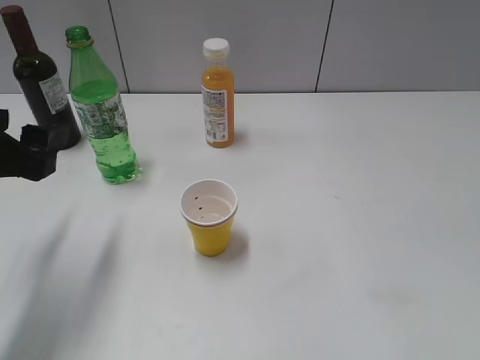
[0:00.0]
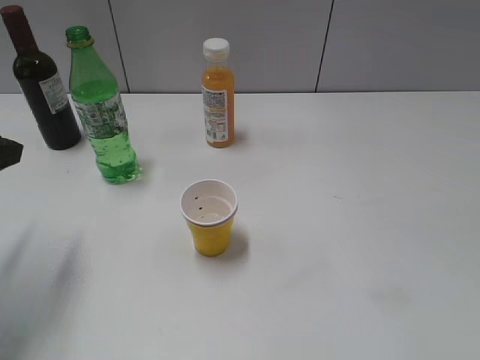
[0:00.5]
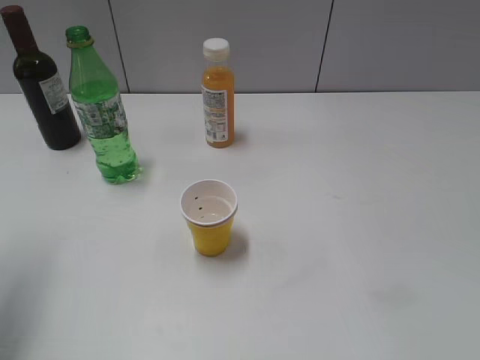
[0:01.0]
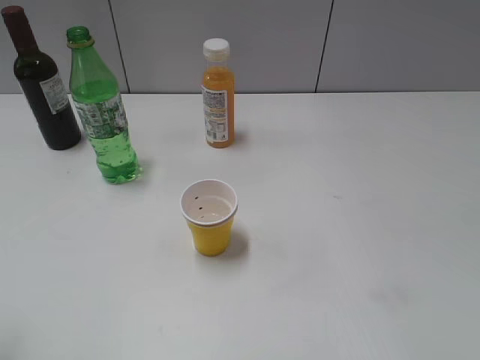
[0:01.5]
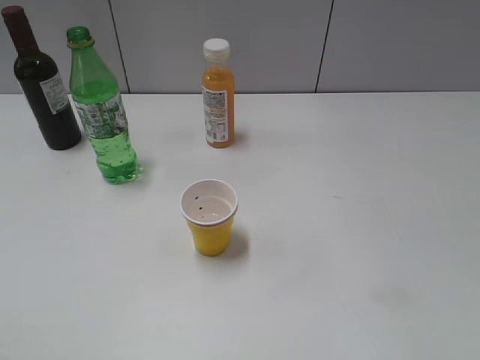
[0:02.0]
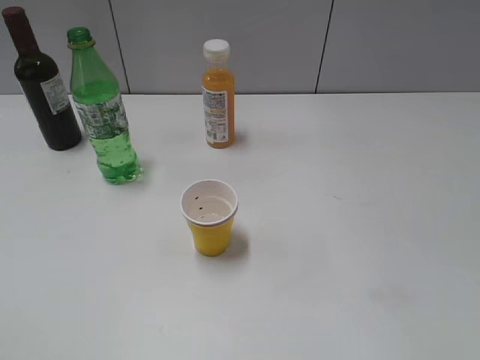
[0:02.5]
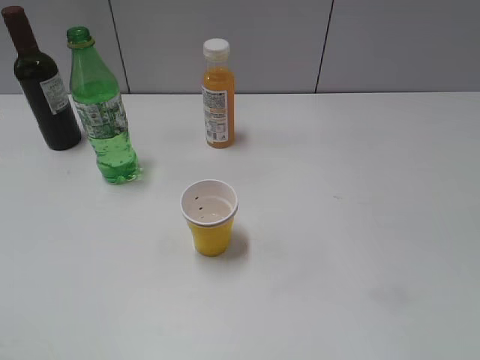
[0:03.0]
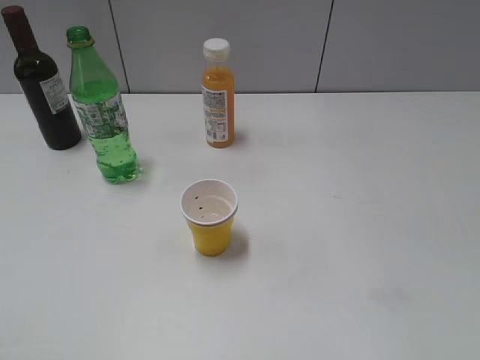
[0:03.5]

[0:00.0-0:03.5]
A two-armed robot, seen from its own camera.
0:00.0 to 0:02.0: The left gripper moves backward and upward, some 20 cm.

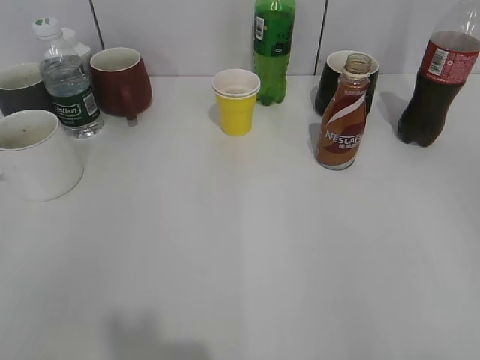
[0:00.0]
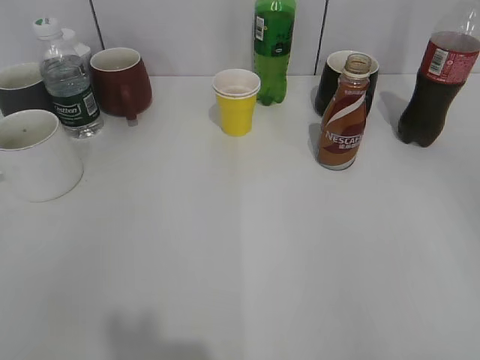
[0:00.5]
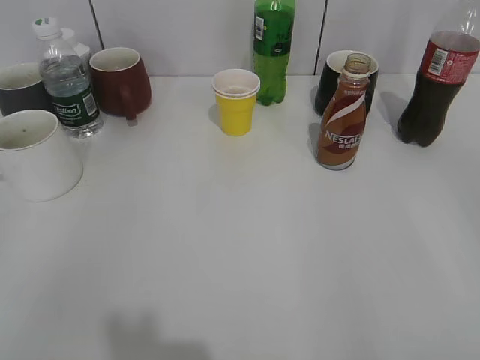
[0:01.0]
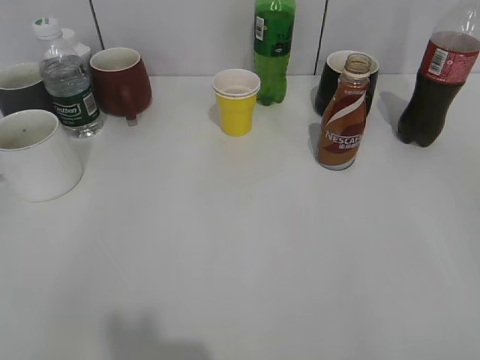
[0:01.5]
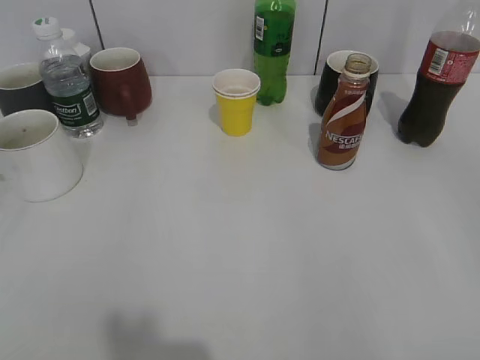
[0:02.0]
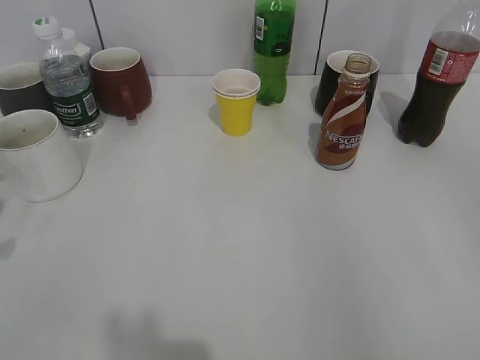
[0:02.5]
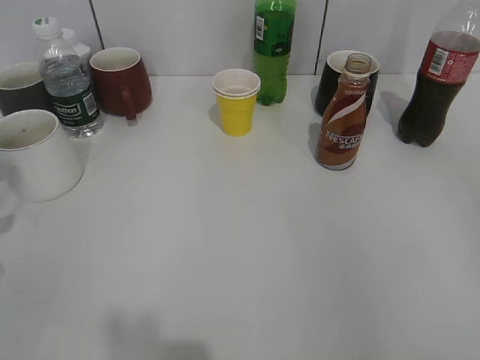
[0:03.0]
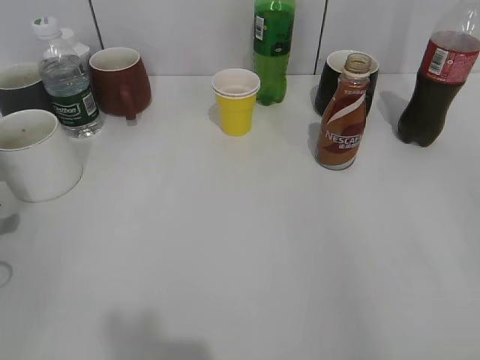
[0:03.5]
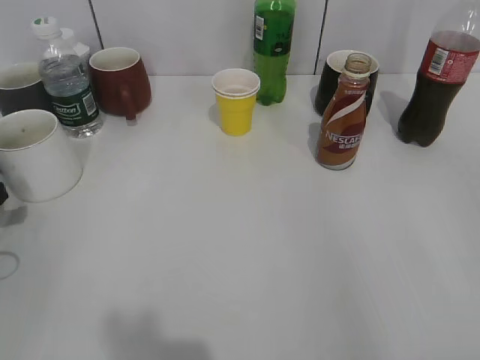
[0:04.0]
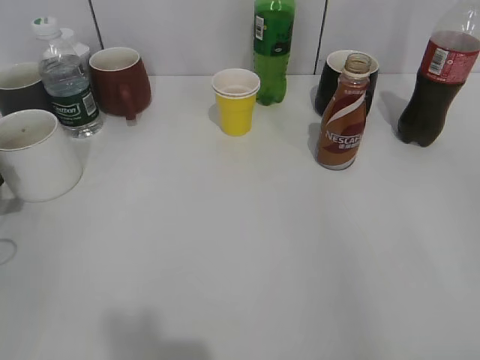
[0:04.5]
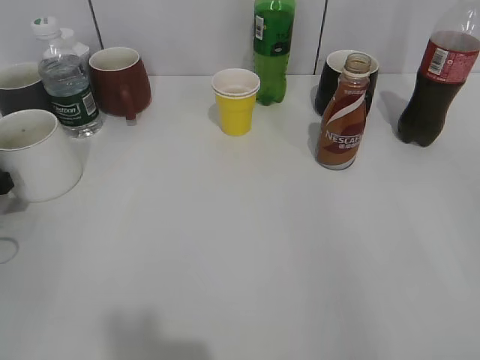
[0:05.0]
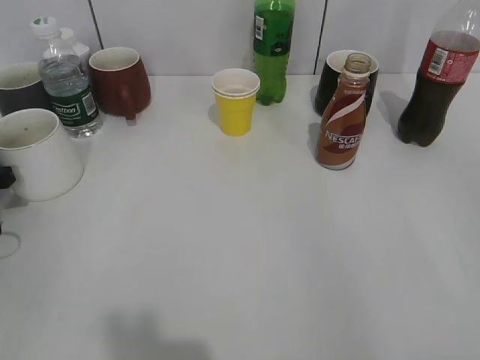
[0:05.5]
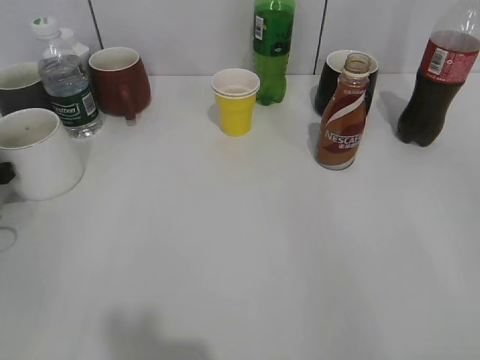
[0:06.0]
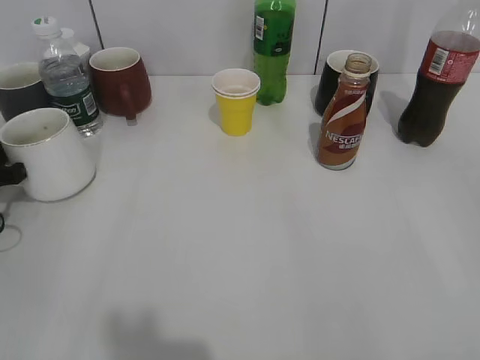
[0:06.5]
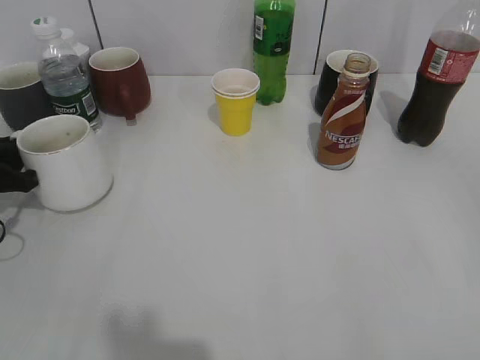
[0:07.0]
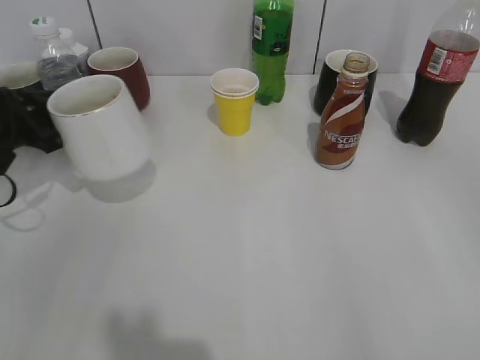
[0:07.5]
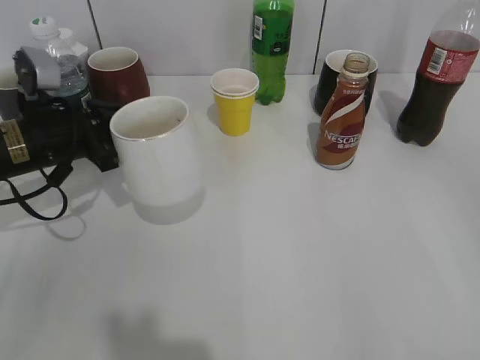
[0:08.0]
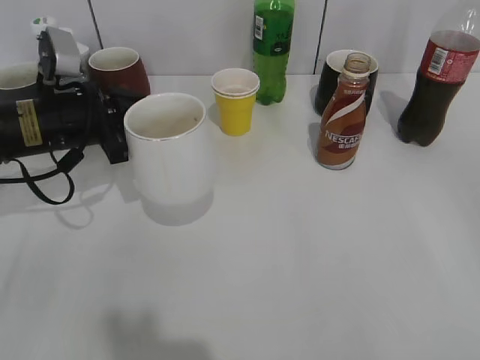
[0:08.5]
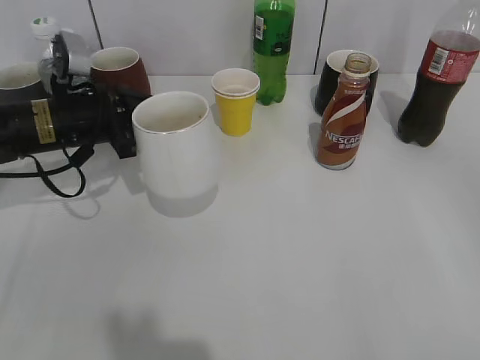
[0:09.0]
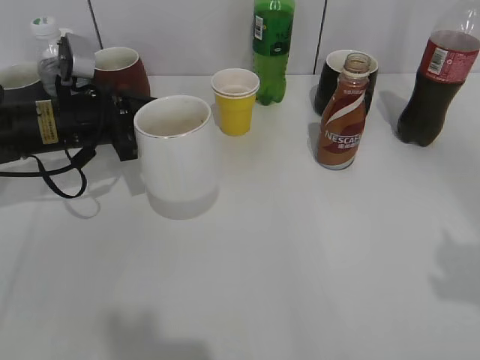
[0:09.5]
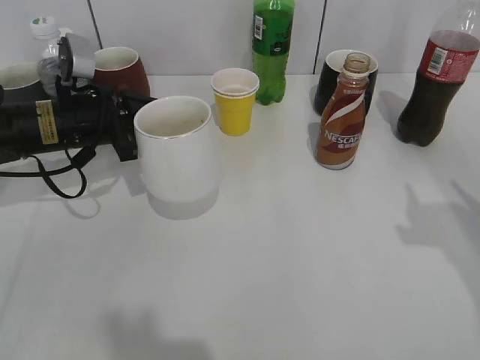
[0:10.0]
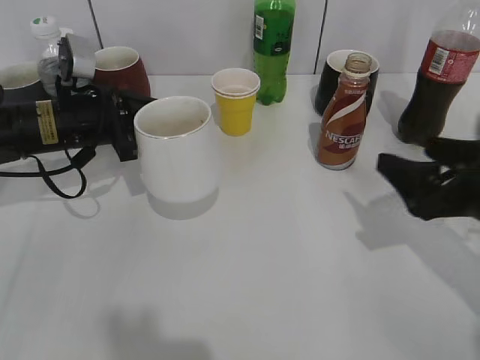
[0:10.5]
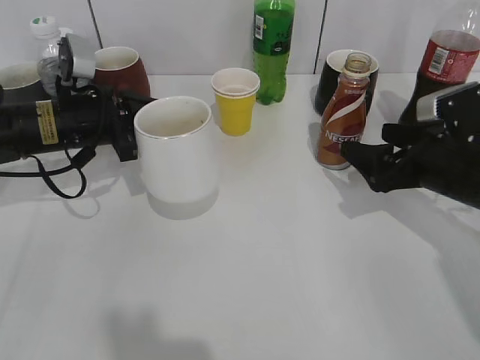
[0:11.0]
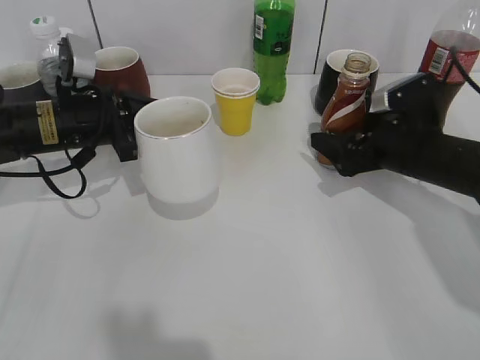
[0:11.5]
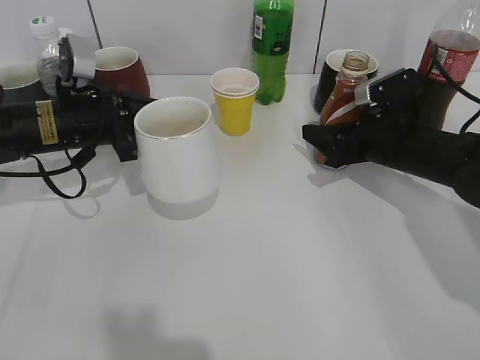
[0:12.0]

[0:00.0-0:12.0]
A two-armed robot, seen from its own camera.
Step, 0:06.5 to 0:08.5: Lift the white cup with left gripper.
0:02.0 to 0:04.0: The left gripper is displaced downward and forward by about 20 cm.
0:06.0 to 0:08.0: The left gripper shifts roughly 10 cm to the right, and closes.
0:08.0 to 0:10.0: The right gripper moves forward, approximately 15 cm.
0:10.0 to 0:12.0: The right gripper travels forward, downward and to the left by some 25 cm, and opens and closes again.

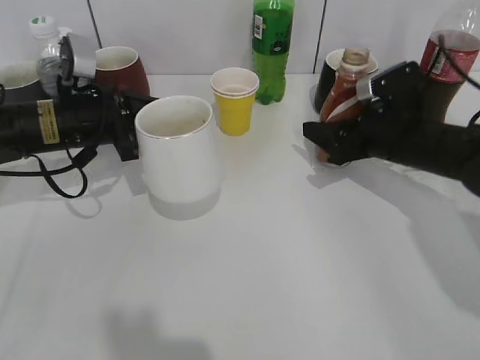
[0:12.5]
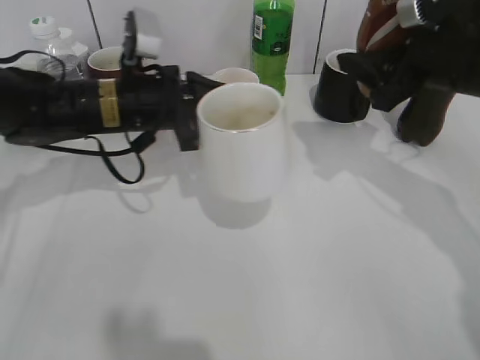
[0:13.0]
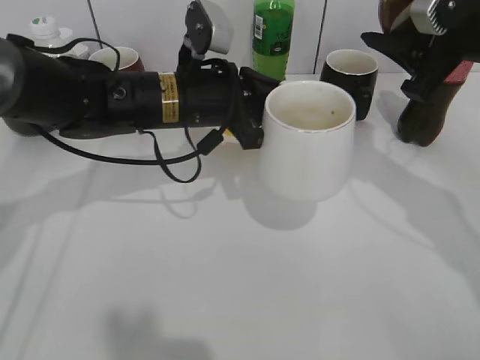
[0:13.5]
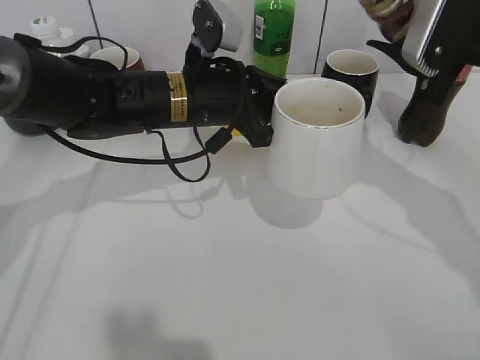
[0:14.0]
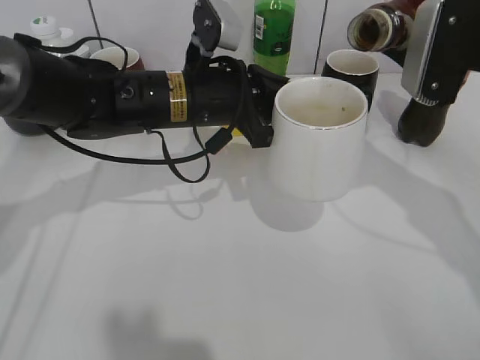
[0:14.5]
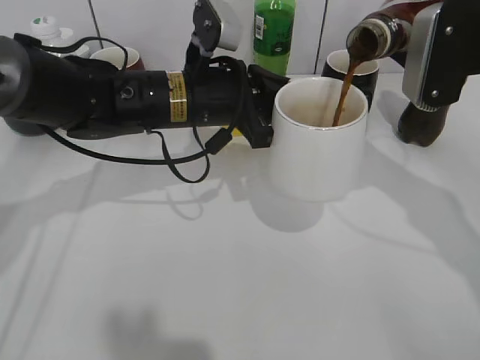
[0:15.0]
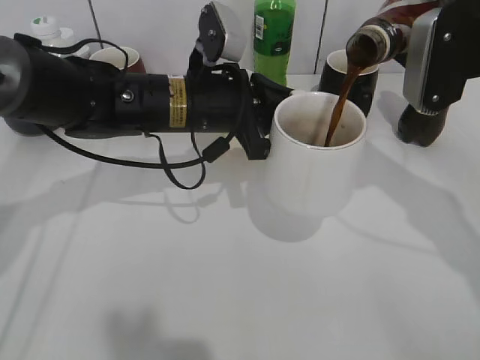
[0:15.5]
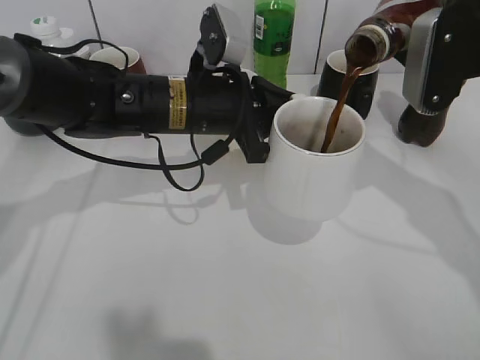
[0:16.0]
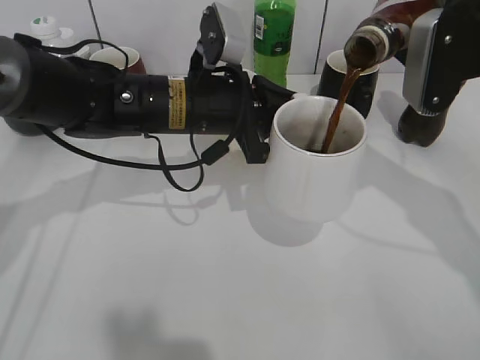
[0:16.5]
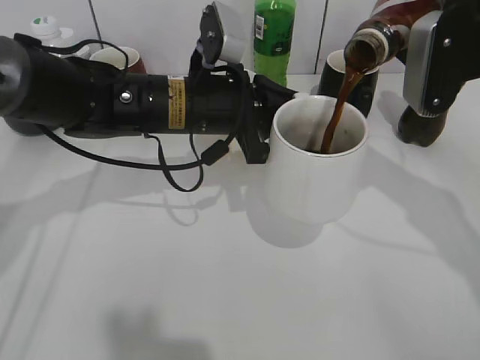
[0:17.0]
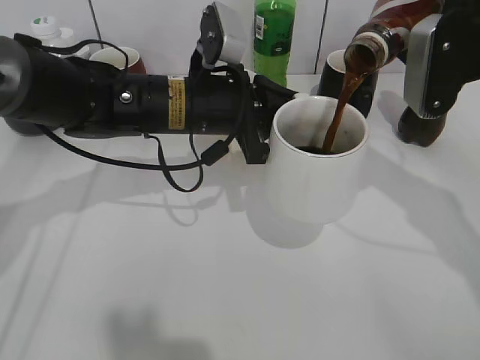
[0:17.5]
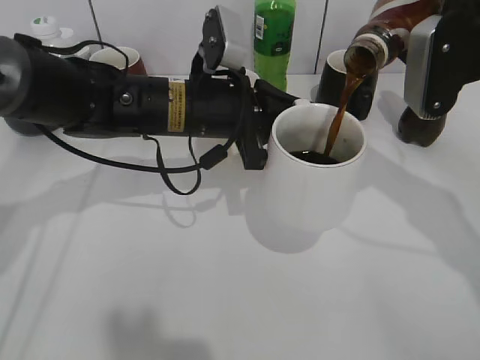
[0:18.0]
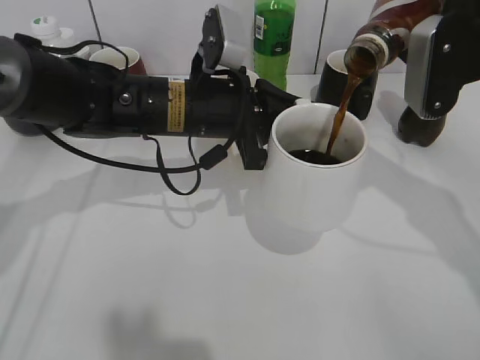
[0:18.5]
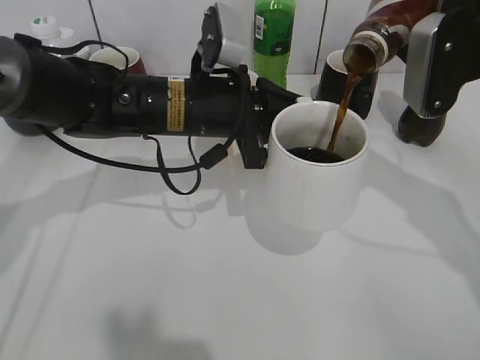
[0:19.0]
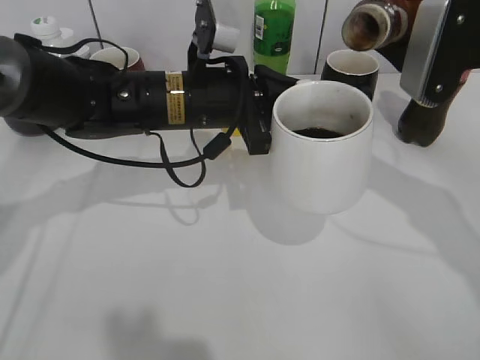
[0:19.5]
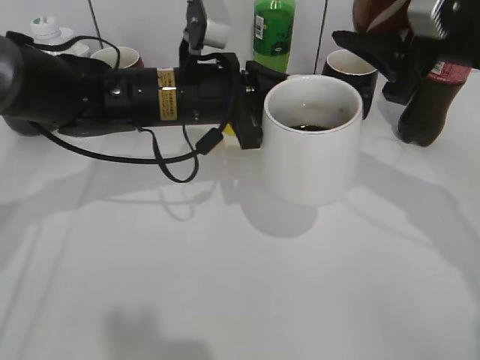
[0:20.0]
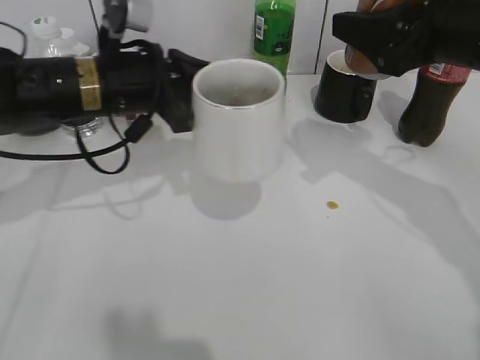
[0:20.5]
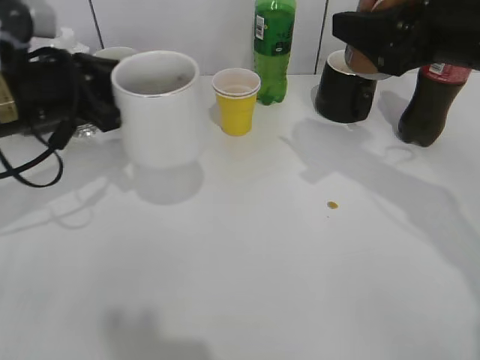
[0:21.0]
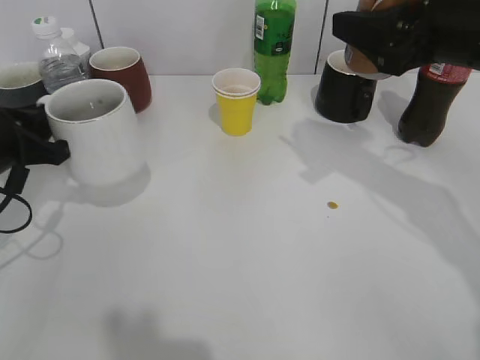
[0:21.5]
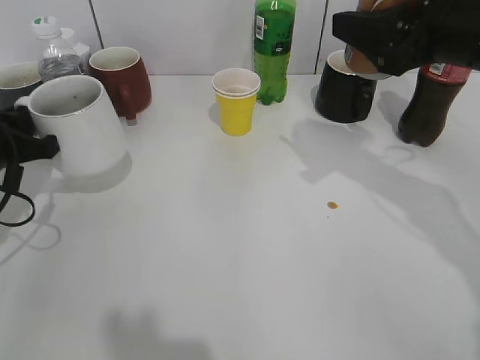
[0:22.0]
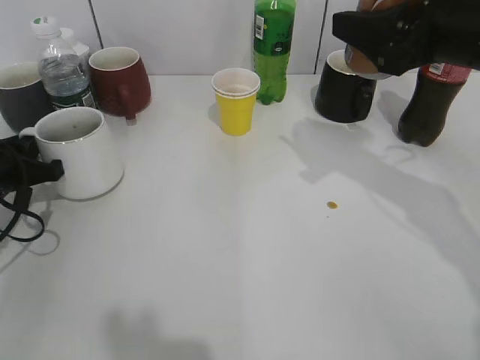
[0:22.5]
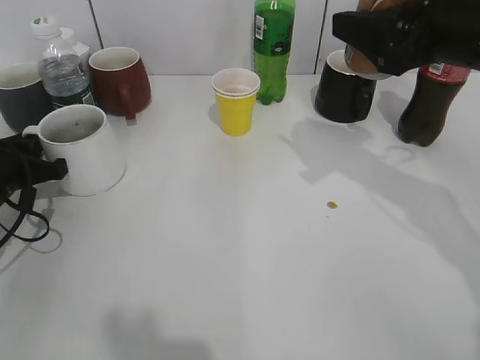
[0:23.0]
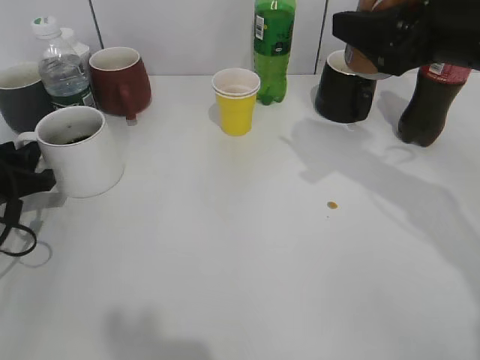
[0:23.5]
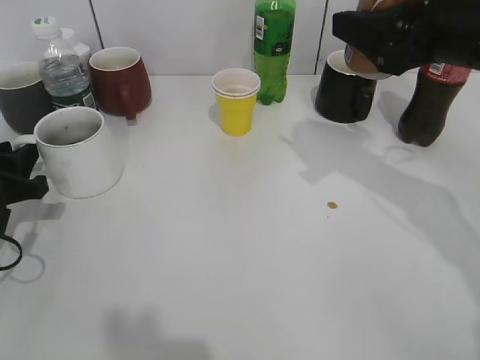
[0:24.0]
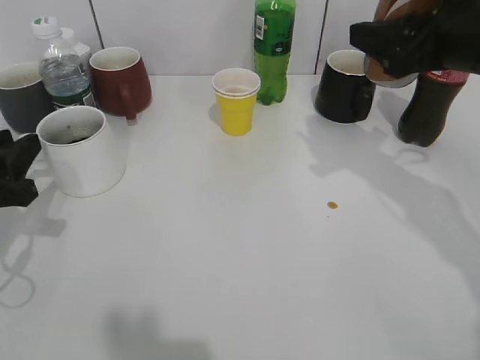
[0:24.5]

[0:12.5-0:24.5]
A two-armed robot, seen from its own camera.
Step, 0:13.0 to 0:19.5: Pour the coffee from bottle to cup with right gripper.
Step, 0:20.0 to 0:23.5: Place the white cup on the table with left gripper.
0:12.5 to 0:14.5: The right gripper is displaced upward by approximately 15 cm; the left gripper moves to the right, approximately 15 cm.
0:14.5 to 0:16.5: The grippers stay close to where they were, moving slightly.
0:16.5 to 0:18.5: The two grippers keep their place.
0:18.5 to 0:20.5: The left gripper shifts approximately 10 cm to the left.
0:20.5 to 0:22.5: The left gripper travels to the left and downward by approximately 20 cm.
0:22.5 to 0:24.5: The left gripper travels backward by approximately 5 cm, and opens its fingers.
